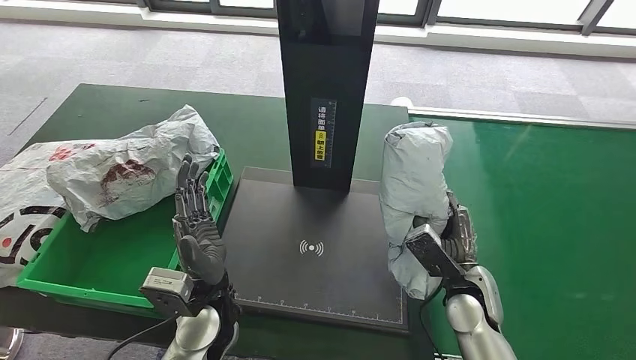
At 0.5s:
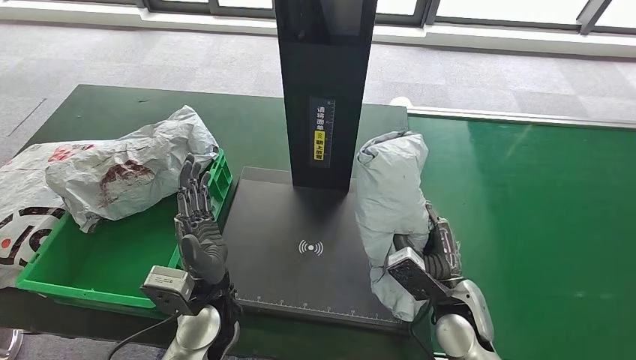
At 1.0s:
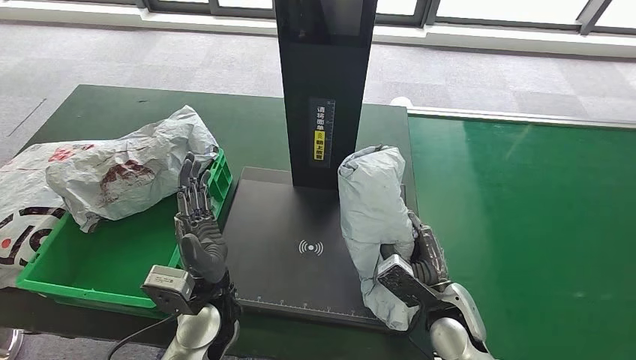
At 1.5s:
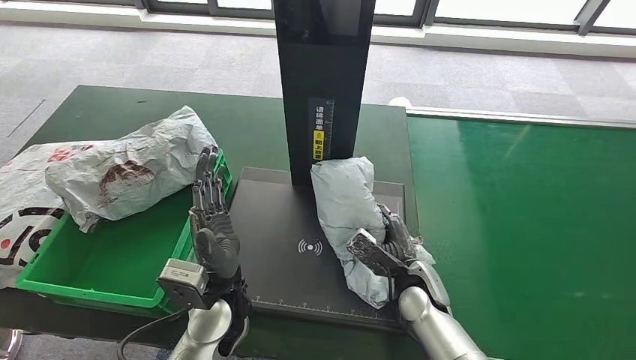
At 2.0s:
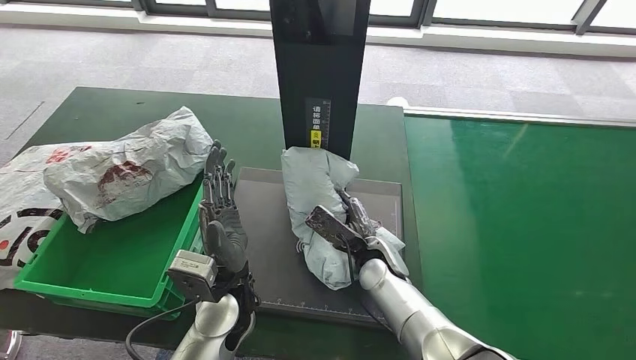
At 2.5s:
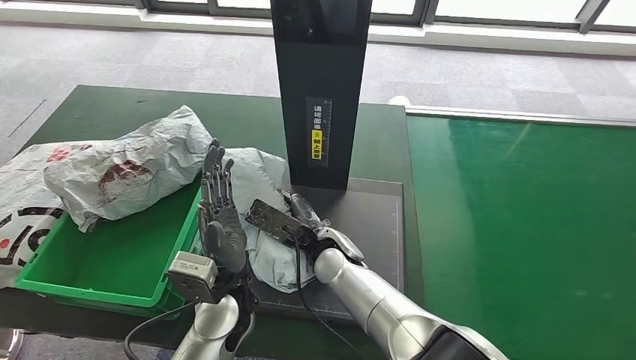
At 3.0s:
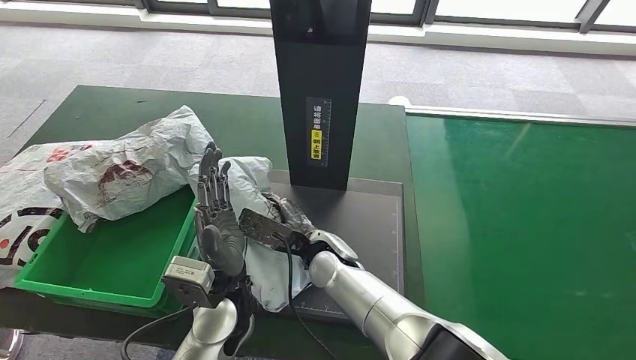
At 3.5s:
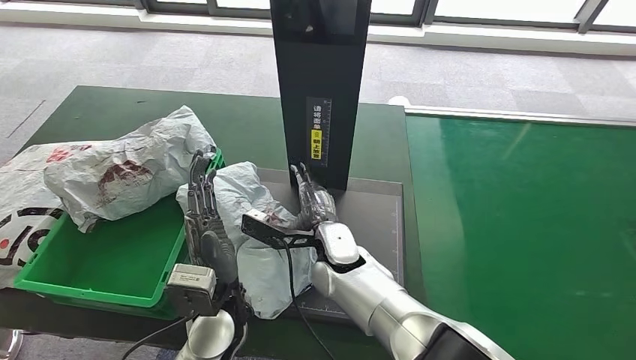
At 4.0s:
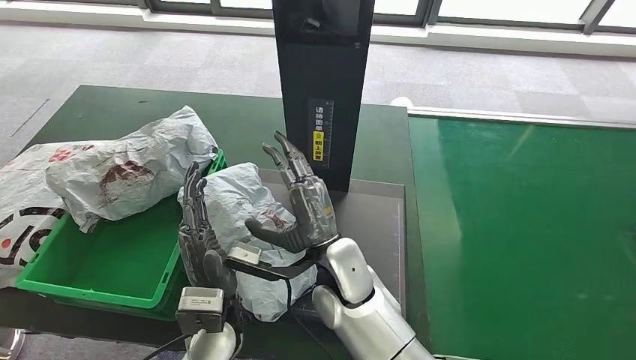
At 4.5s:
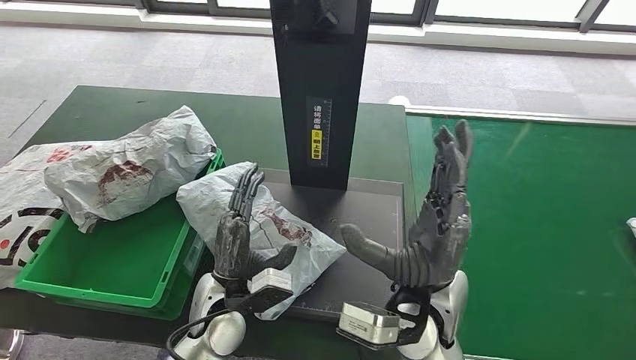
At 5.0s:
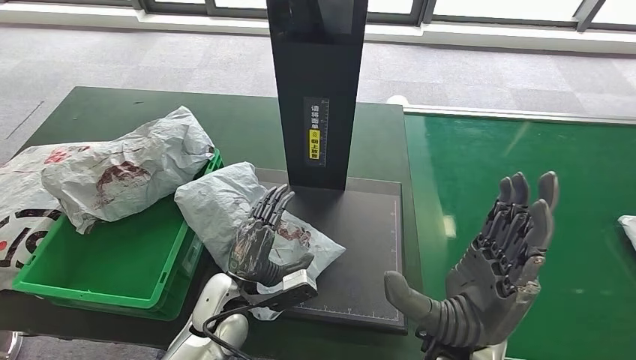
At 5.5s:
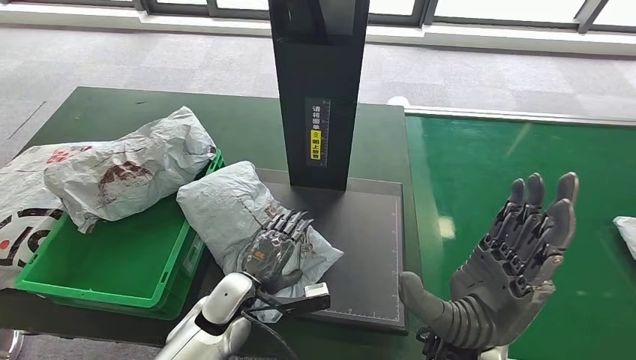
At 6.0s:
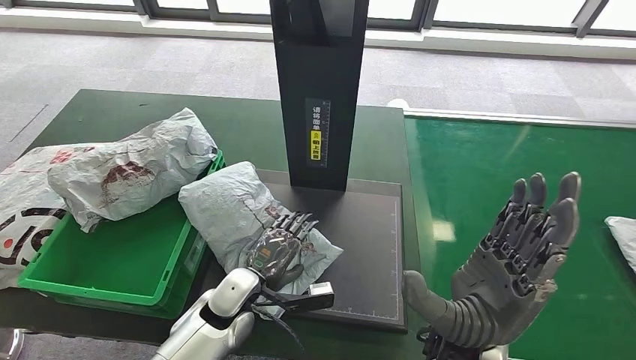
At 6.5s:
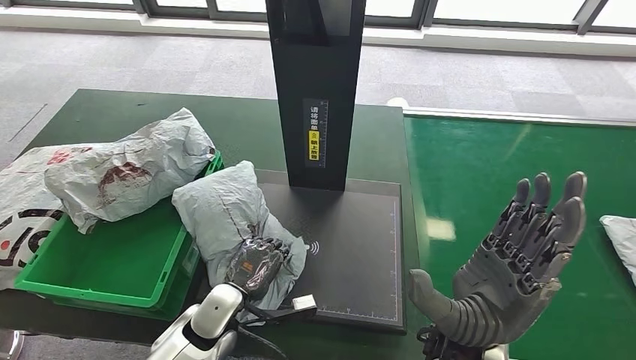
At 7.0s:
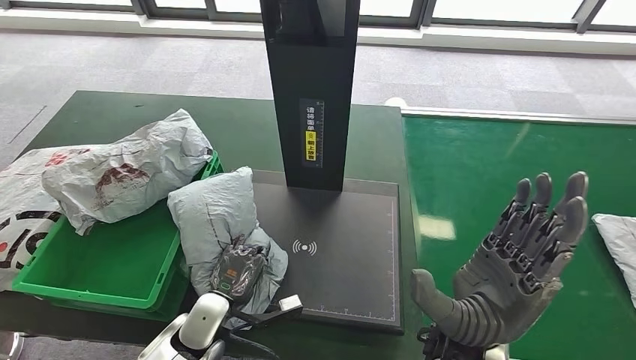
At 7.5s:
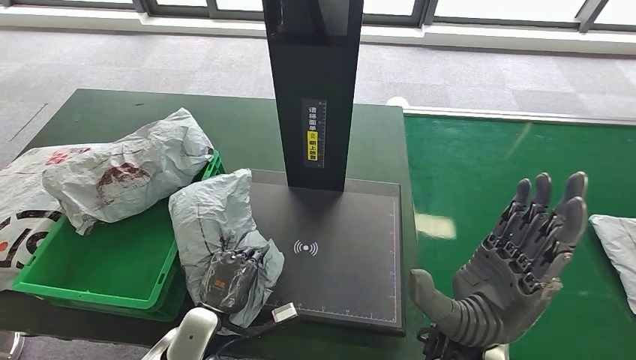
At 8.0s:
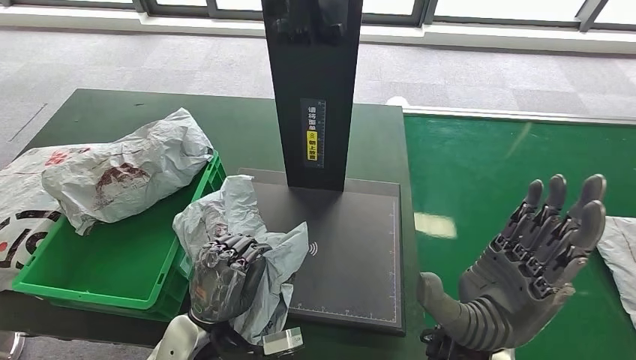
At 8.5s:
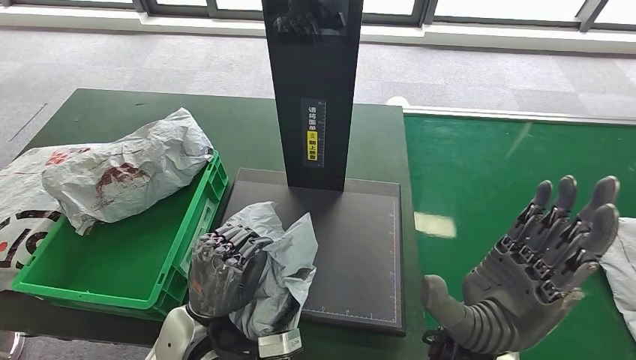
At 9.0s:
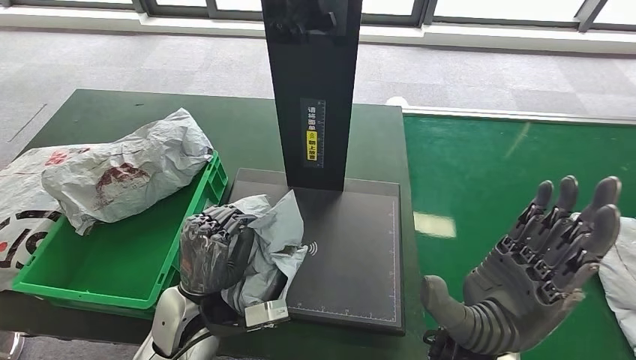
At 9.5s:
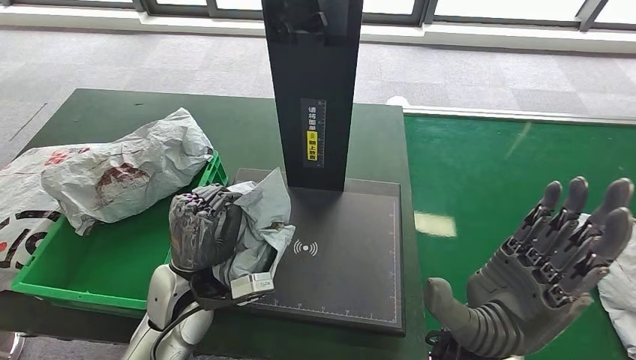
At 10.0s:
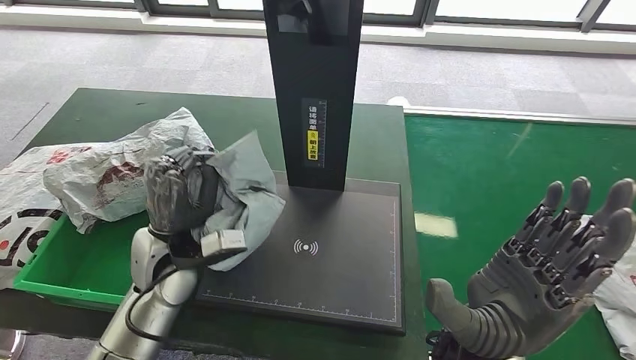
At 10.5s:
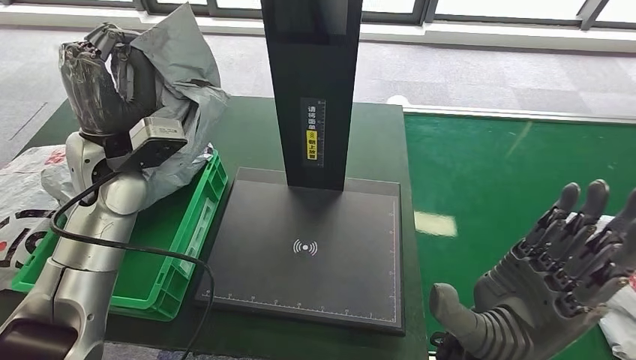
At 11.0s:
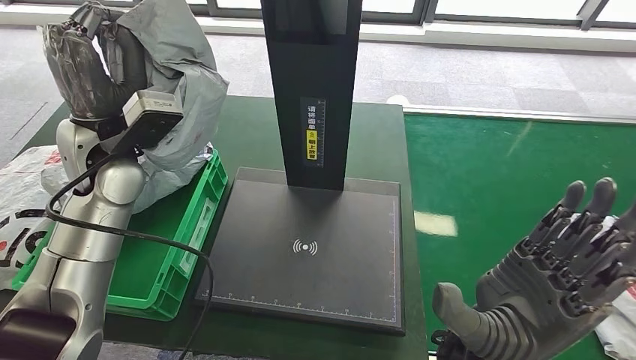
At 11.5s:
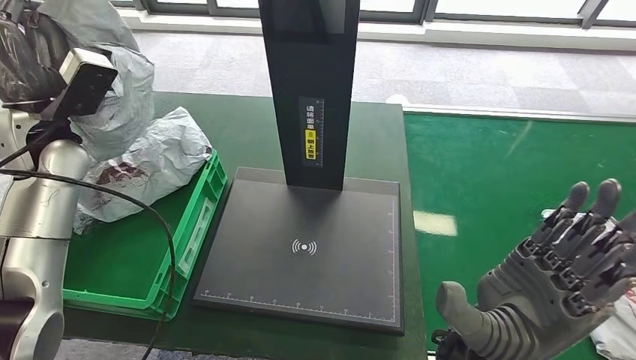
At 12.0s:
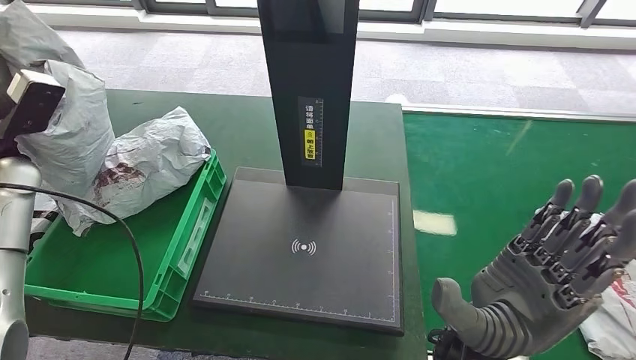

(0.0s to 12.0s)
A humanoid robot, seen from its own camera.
Step, 0.0s - 4.5s: Place the parcel onto the inbound machine.
Step, 5.0s - 9.0s: Pick up the parcel from the inbound machine.
8.0s - 10.0s: The left hand moves forward, upward and to the left, some 15 cm.

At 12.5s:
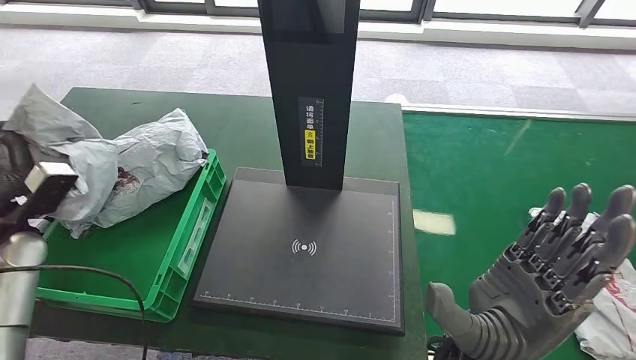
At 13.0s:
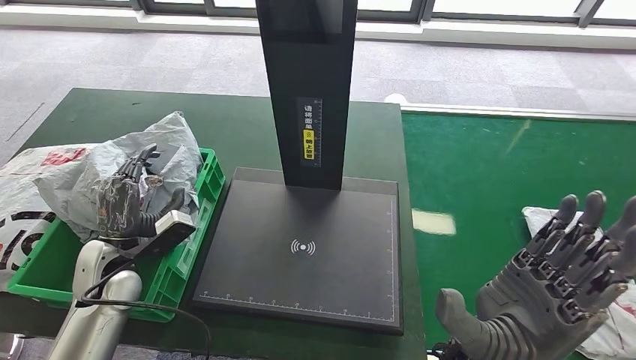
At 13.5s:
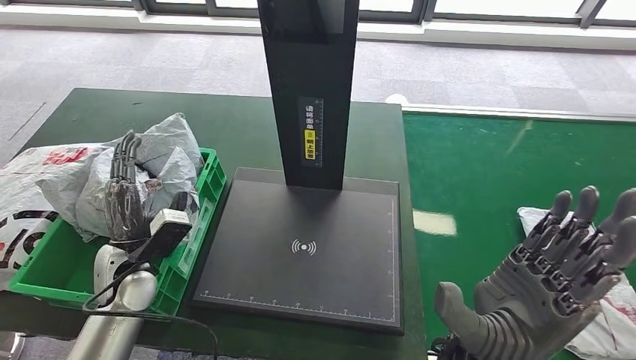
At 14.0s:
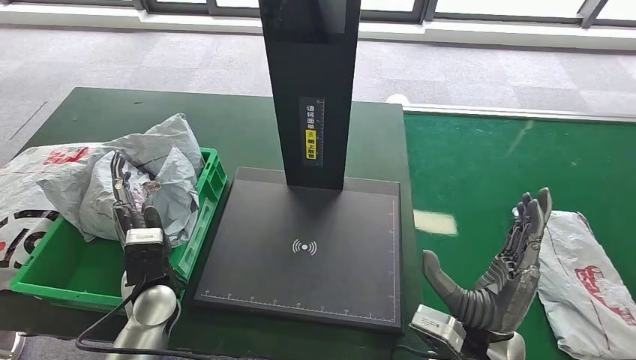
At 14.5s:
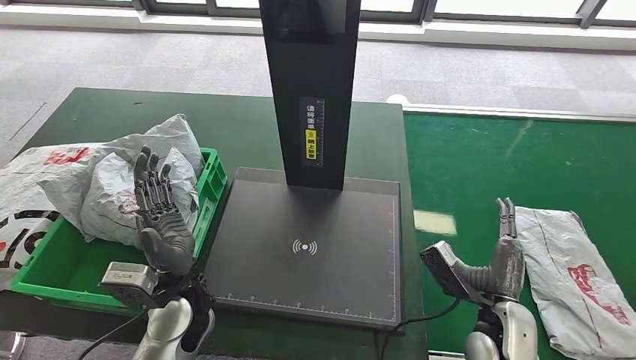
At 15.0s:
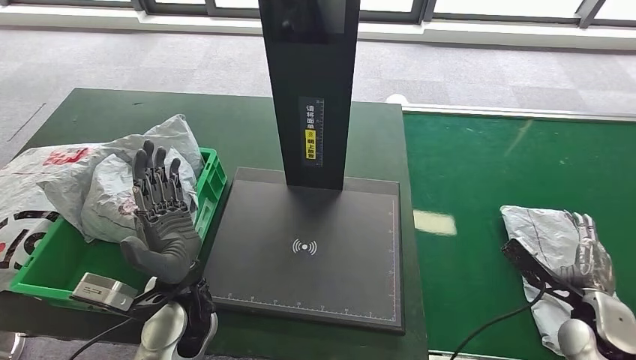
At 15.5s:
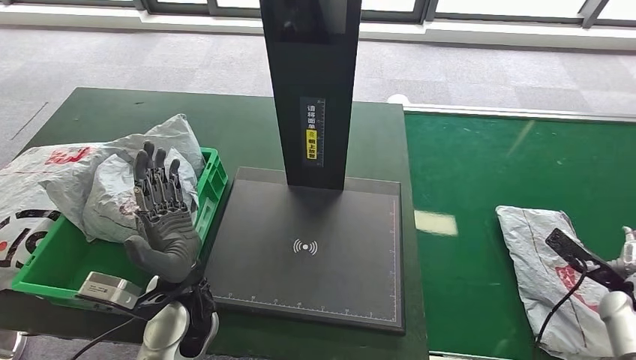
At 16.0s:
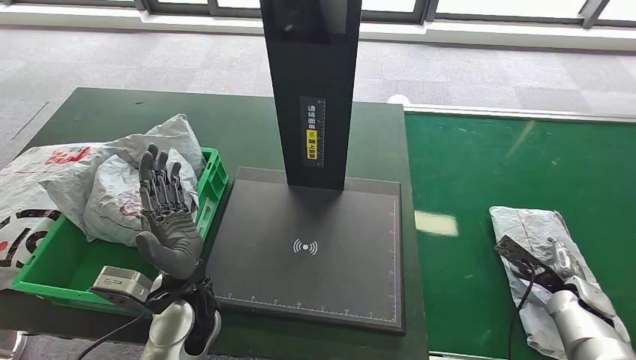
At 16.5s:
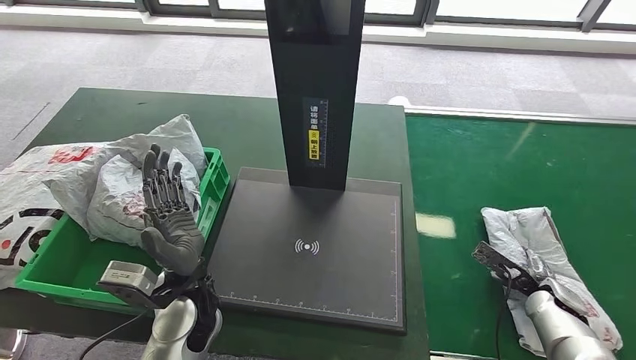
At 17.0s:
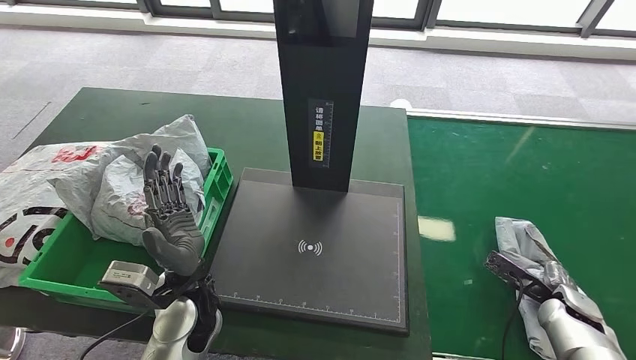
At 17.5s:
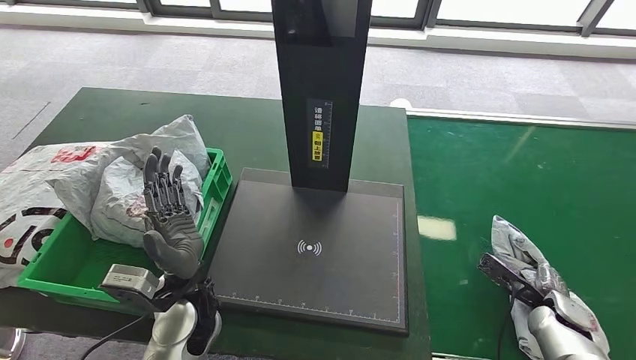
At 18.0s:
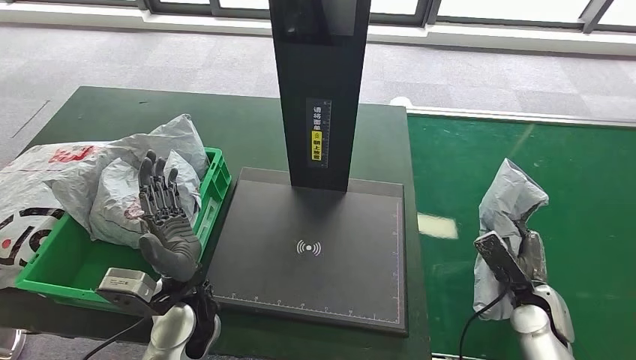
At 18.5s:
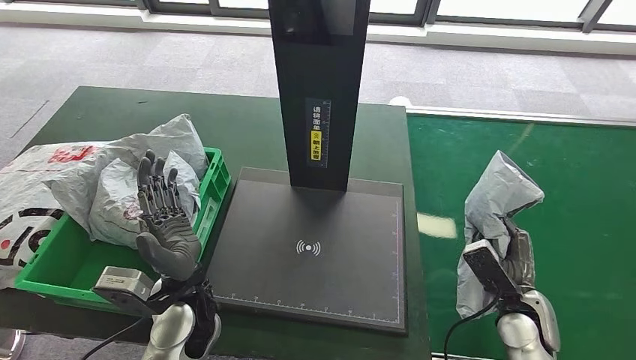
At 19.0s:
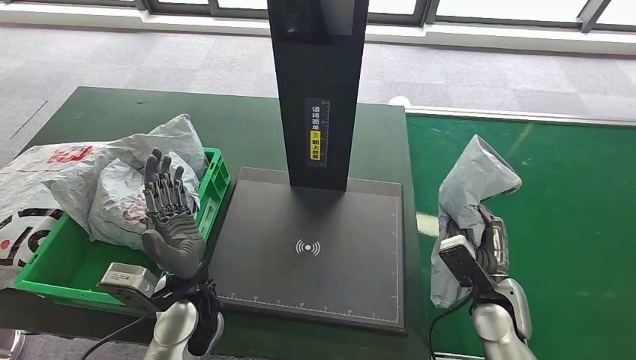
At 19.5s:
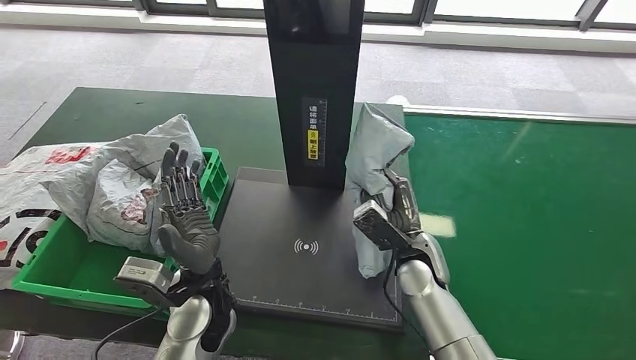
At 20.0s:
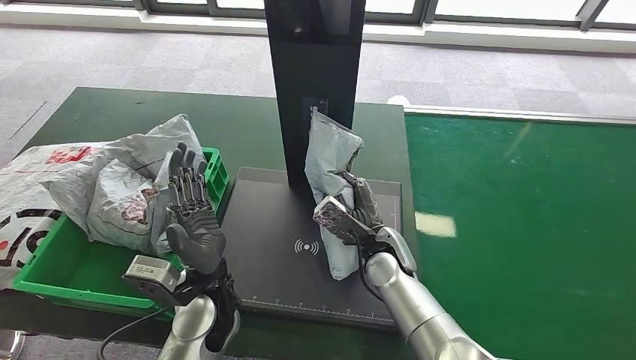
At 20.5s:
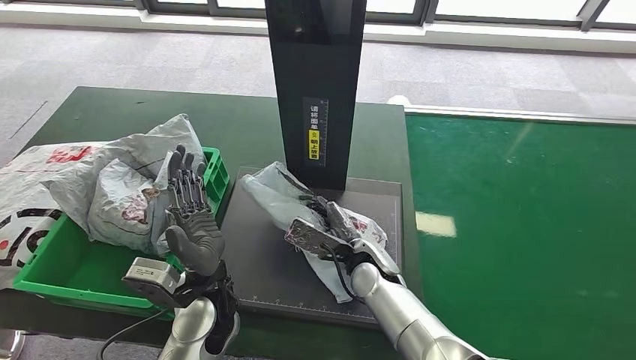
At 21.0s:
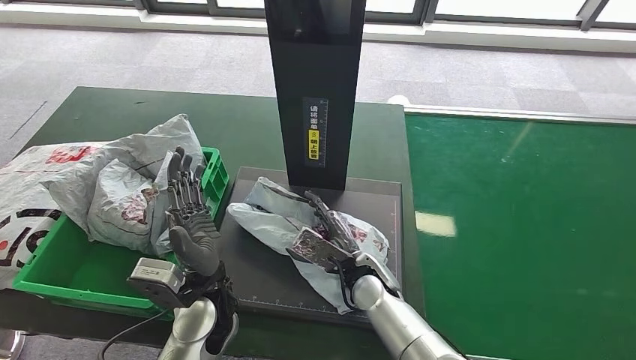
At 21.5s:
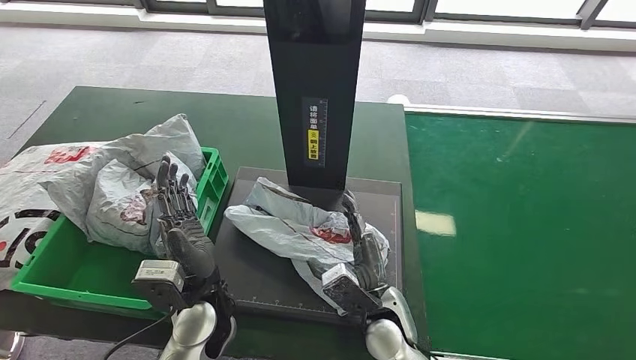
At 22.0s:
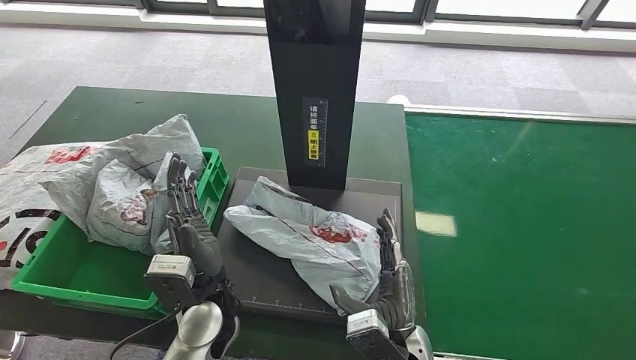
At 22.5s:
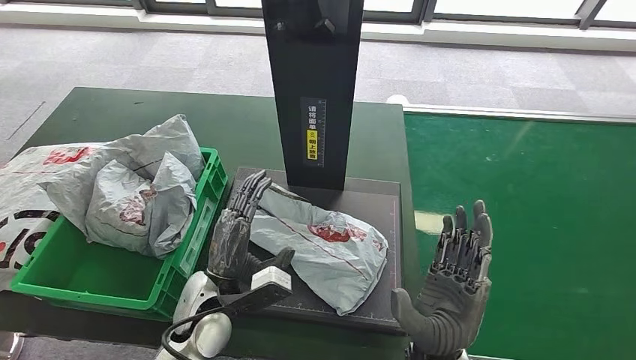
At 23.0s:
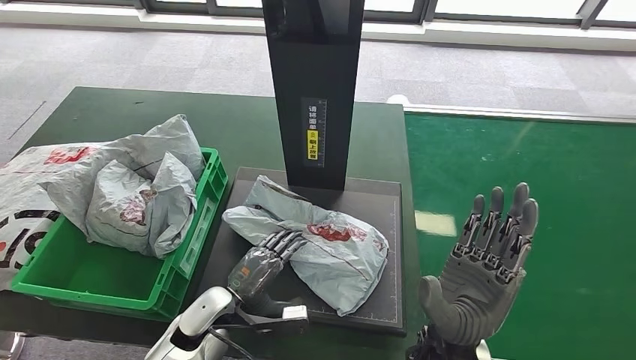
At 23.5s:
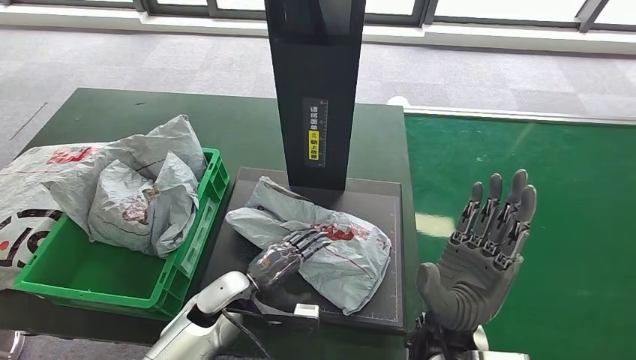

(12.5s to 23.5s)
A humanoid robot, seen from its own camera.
Step, 12.5s - 14.5s: Place the parcel into the delivery box.
Step, 17.0s - 18.5s: Pick up the parcel from the conveyor belt.
Step, 19.0s - 21.5s: Place the parcel onto the inbound machine.
14.5s - 16.0s: The right hand is displaced to the right by about 20 cm.
20.0s - 21.5s: The right hand is displaced backward by about 10 cm.
